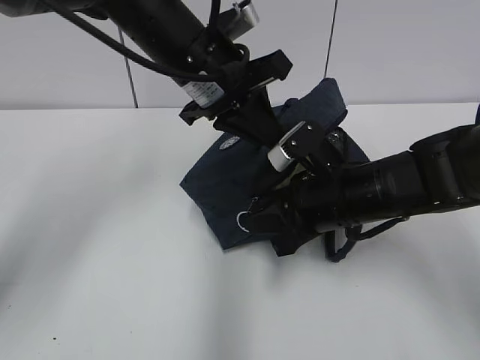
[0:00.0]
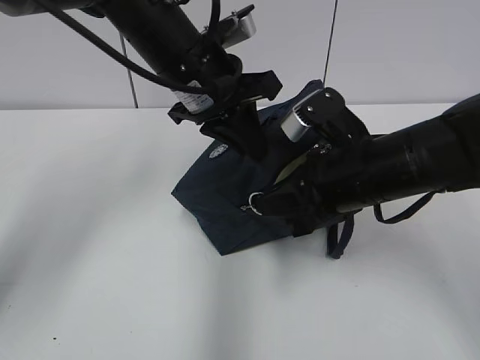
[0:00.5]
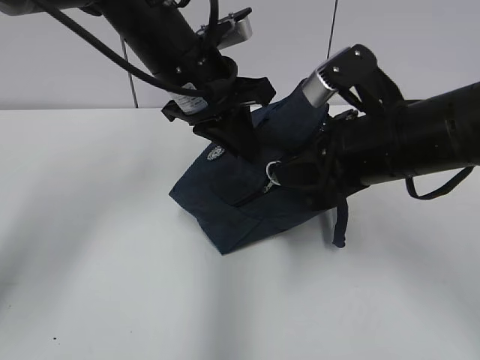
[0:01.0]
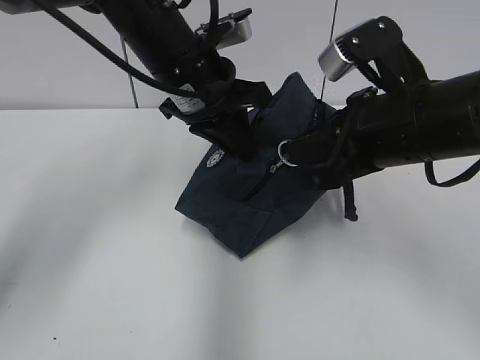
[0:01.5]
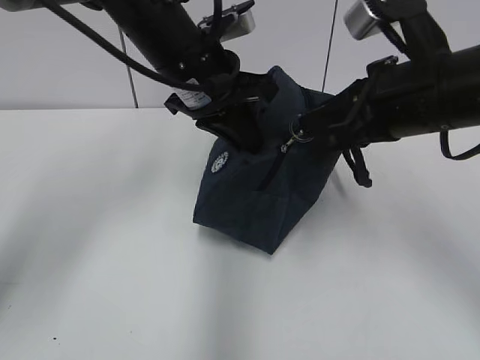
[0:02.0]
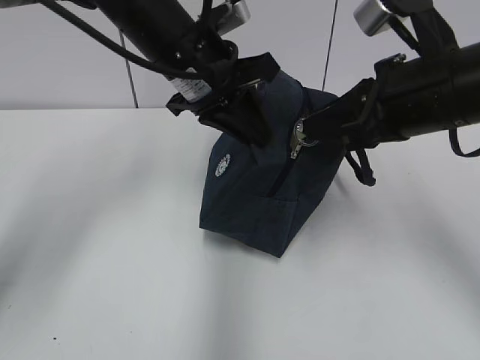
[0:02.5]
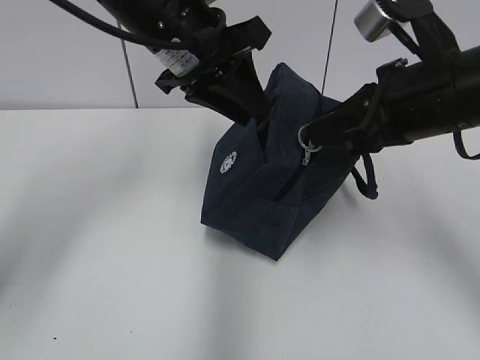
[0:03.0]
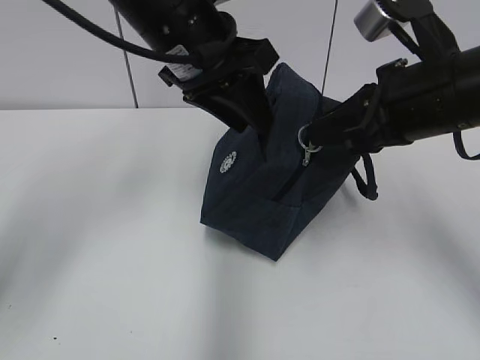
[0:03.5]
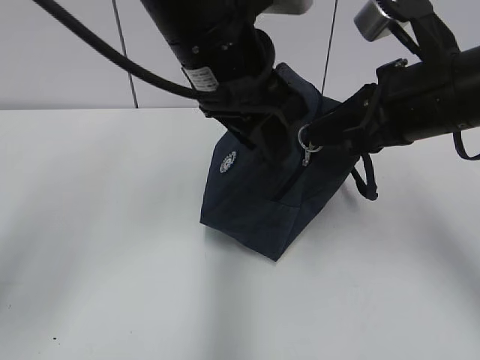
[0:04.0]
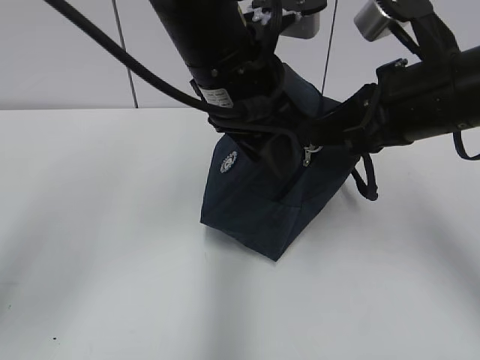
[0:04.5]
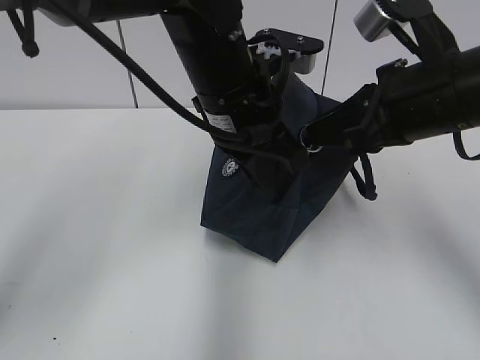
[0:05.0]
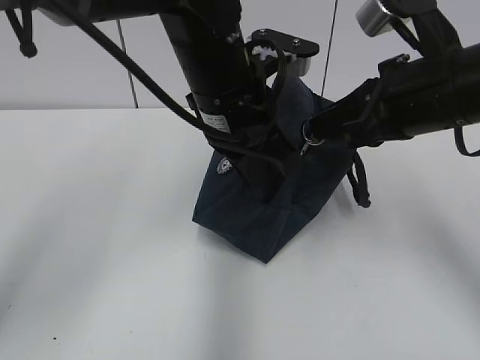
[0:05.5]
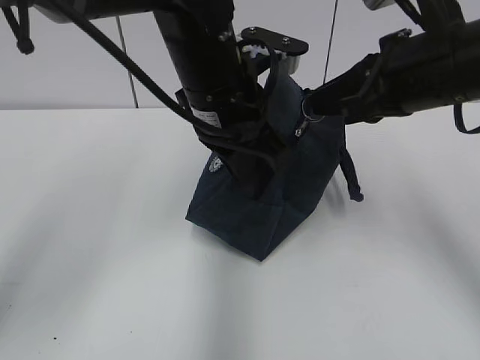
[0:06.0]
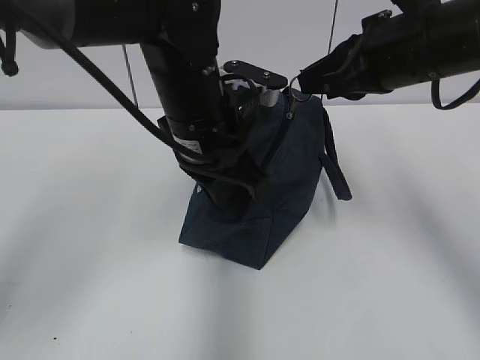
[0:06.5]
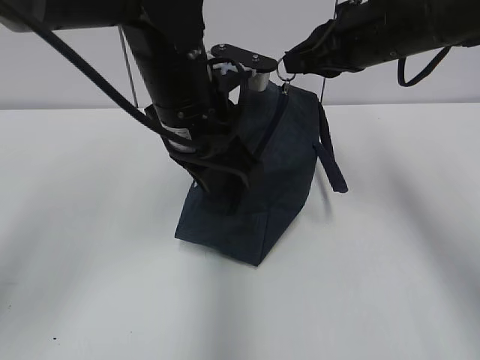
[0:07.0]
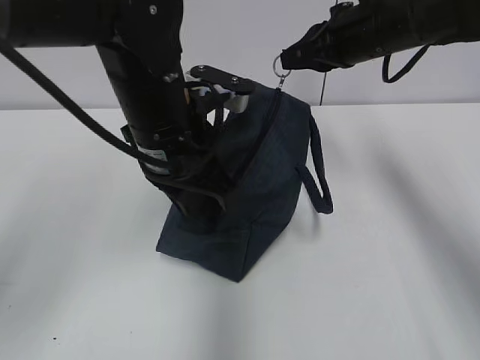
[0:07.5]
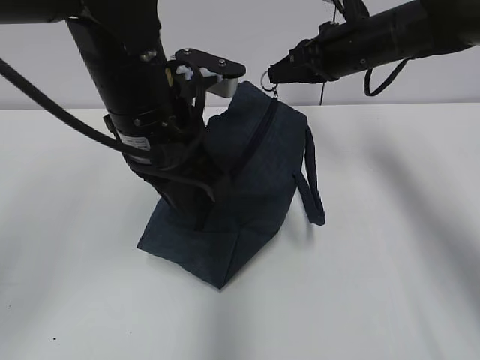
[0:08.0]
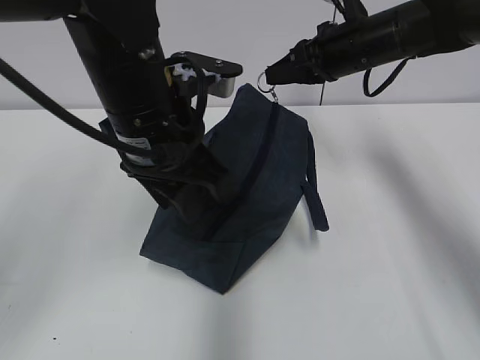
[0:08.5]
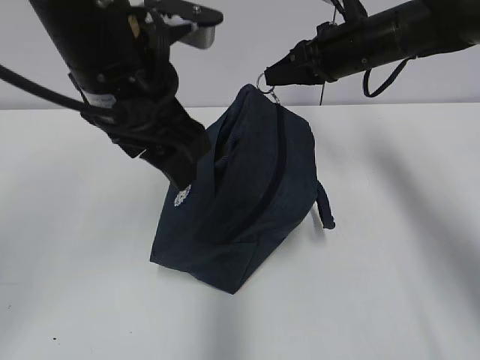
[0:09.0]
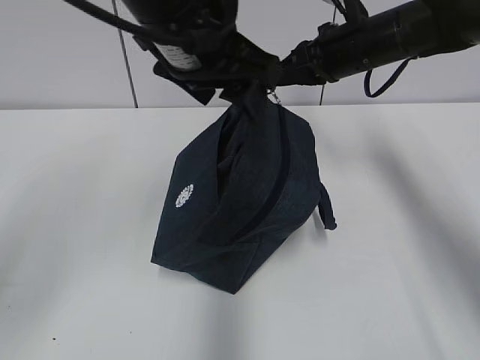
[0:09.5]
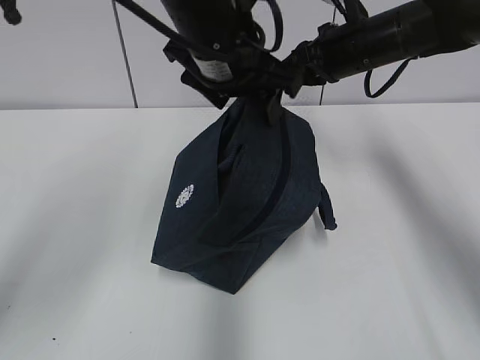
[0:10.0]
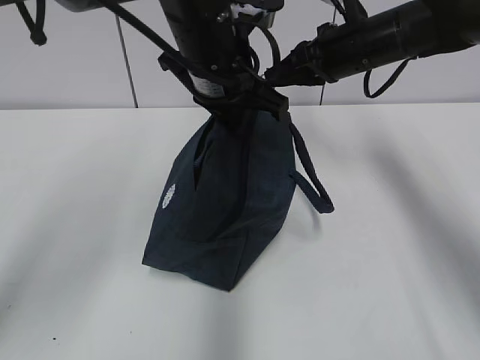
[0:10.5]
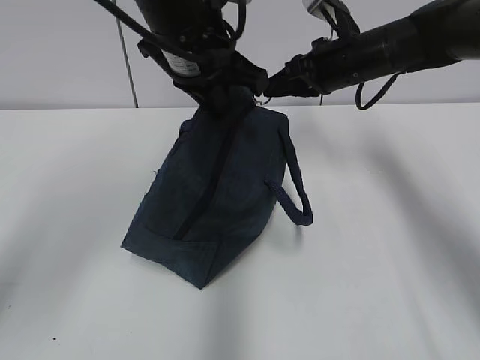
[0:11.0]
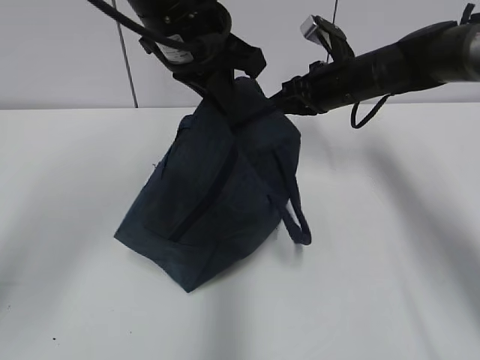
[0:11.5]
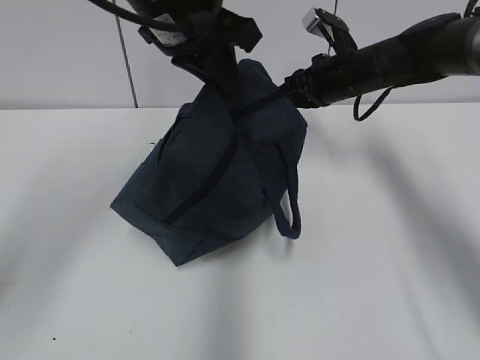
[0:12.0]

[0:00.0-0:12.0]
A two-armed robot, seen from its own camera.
0:00.0 to 0:02.0: The right gripper heads upward, covering some 15 cm.
0:02.0 to 0:04.0: The left gripper goes approximately 5 cm backward, and opens.
0:04.0 to 0:06.0: The left gripper heads downward, covering about 5 cm, and closes.
0:06.0 to 0:08.0: The right gripper is displaced forward by some 15 cm, while the left gripper heads to the left, covering roughly 5 cm.
0:08.0 to 0:10.0: The left gripper is displaced forward and to the right by about 10 cm, and opens its fingers.
0:10.0 to 0:12.0: The right gripper travels downward by roughly 5 cm. Meanwhile the left gripper moves roughly 5 cm, and closes.

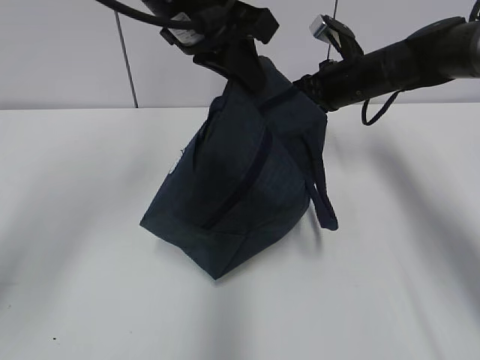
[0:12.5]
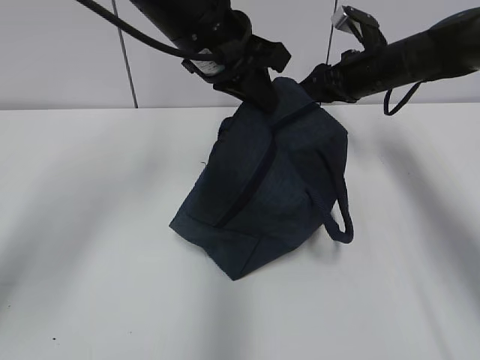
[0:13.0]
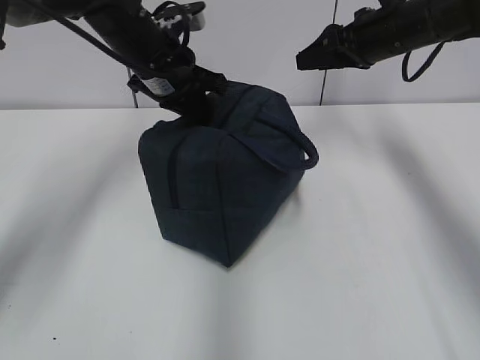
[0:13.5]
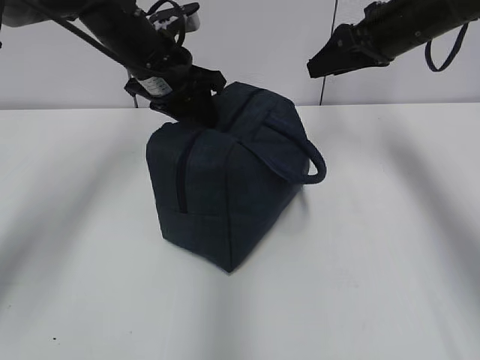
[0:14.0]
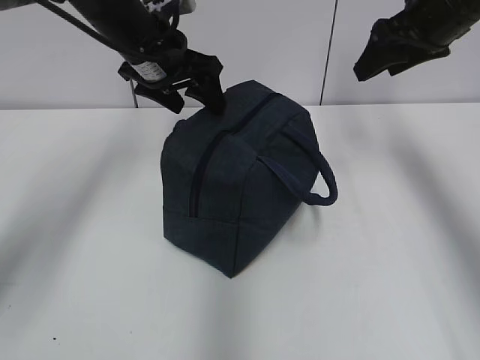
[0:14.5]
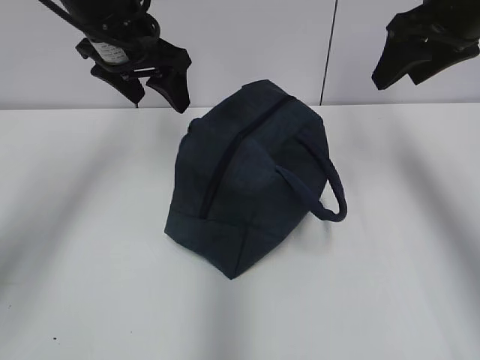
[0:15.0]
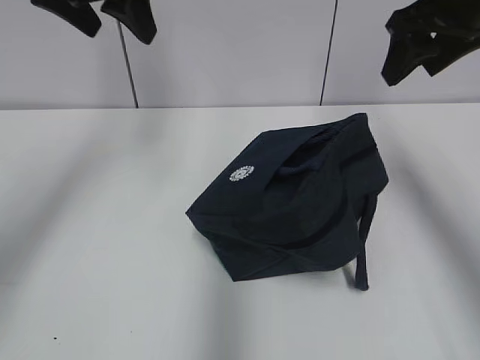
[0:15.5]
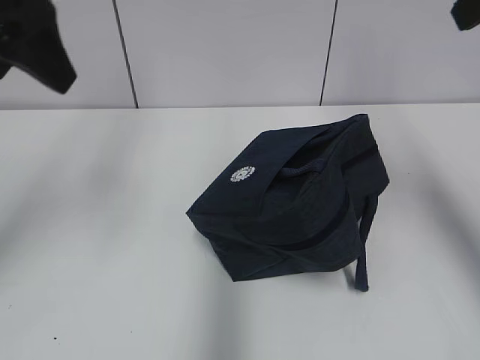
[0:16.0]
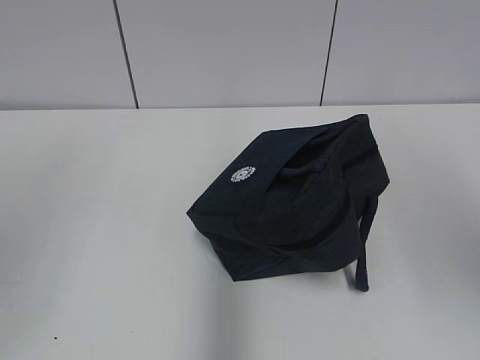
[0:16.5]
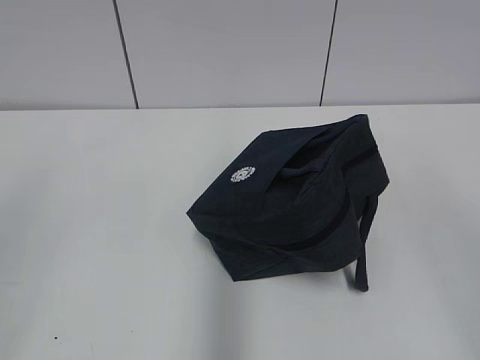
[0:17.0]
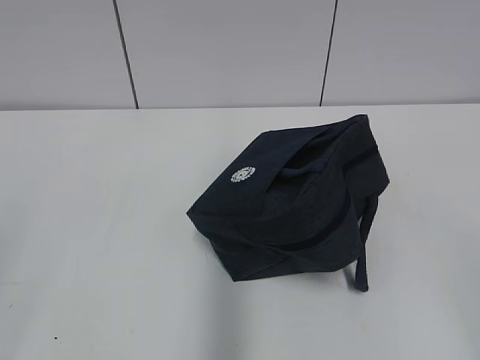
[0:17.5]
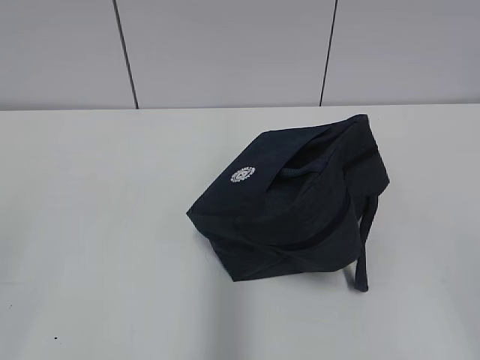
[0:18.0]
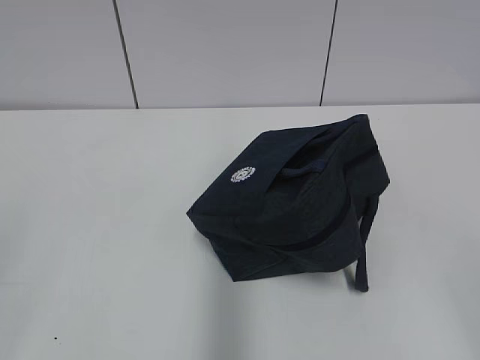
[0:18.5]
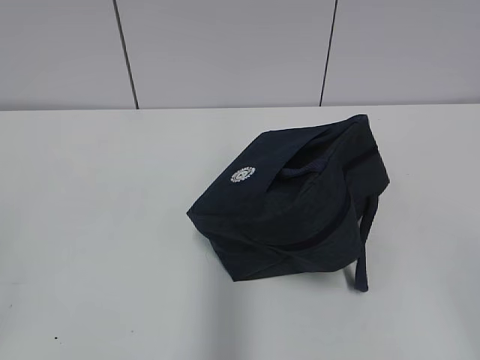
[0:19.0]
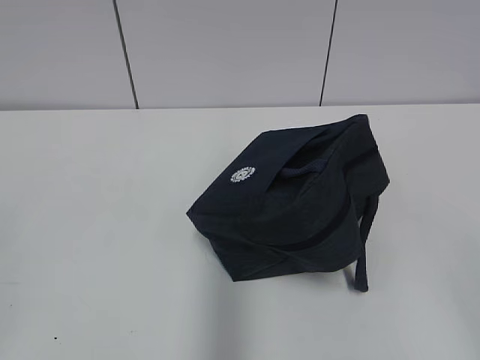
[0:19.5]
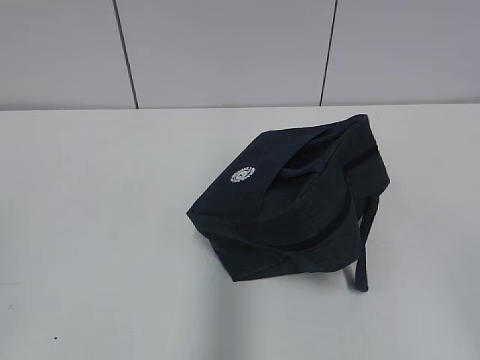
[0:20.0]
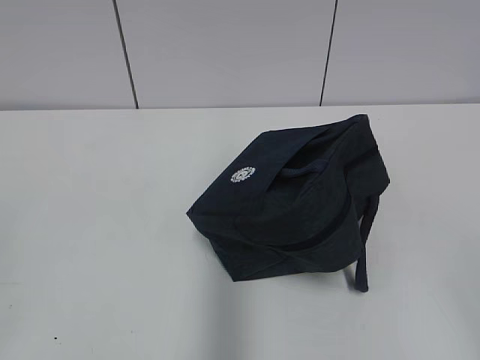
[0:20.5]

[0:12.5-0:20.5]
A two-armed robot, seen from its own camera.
0:12.5 to 0:14.5: The right gripper is displaced upward, backward and to the right by about 15 cm, and opens. The left gripper travels forward, downward and to the left by about 10 cm, and opens its fingers.
0:14.5 to 0:16.5: The right gripper moves backward, some 30 cm. Meanwhile the left gripper travels backward, to the left and upward by about 40 cm.
0:16.5 to 0:18.5: The right gripper travels downward and backward by some 20 cm.

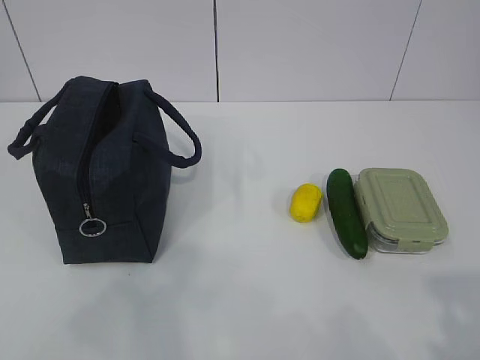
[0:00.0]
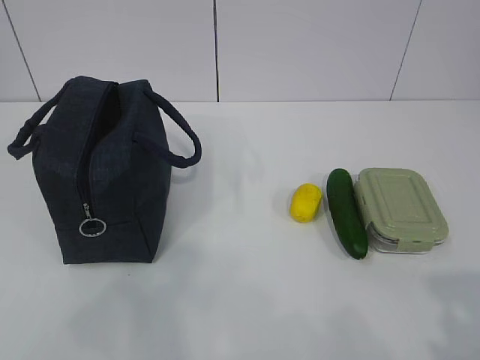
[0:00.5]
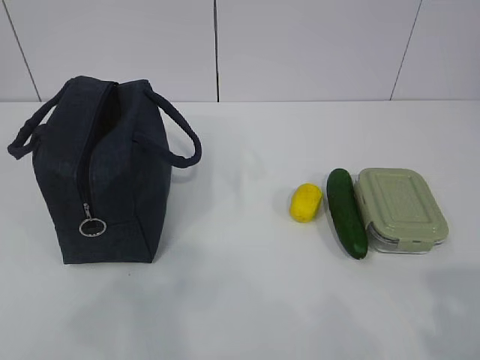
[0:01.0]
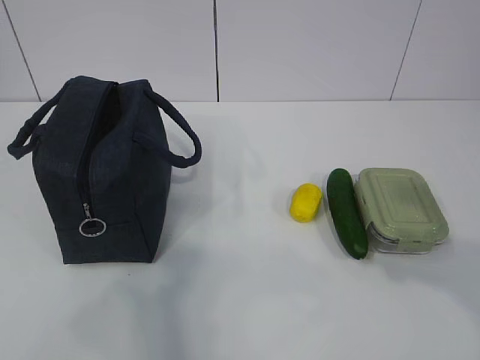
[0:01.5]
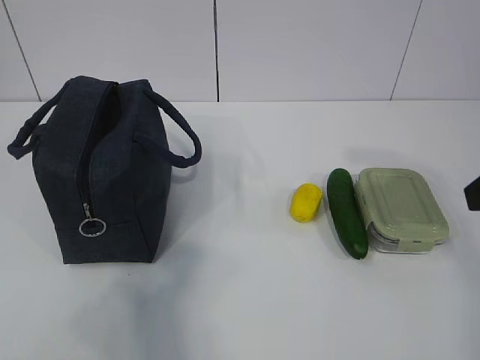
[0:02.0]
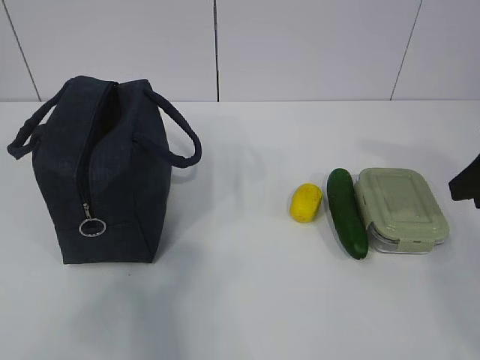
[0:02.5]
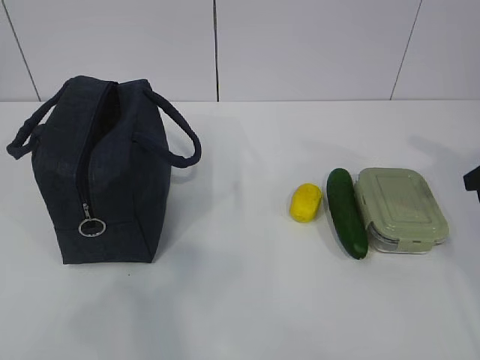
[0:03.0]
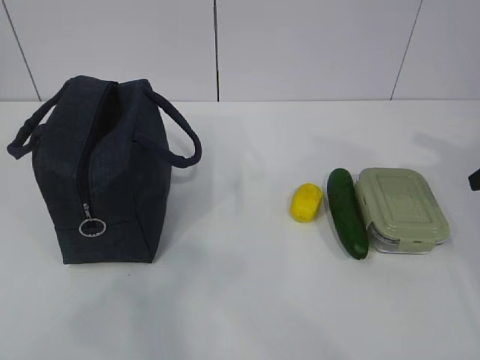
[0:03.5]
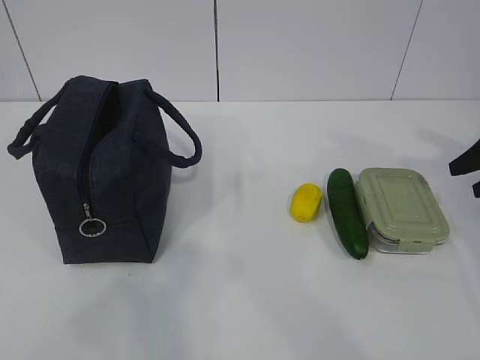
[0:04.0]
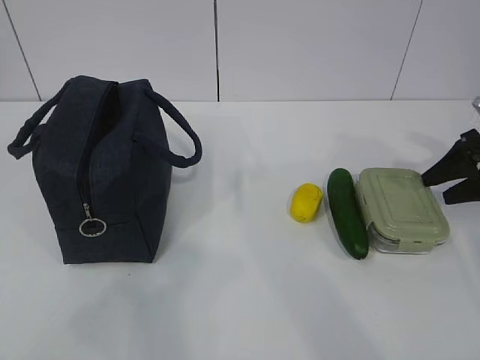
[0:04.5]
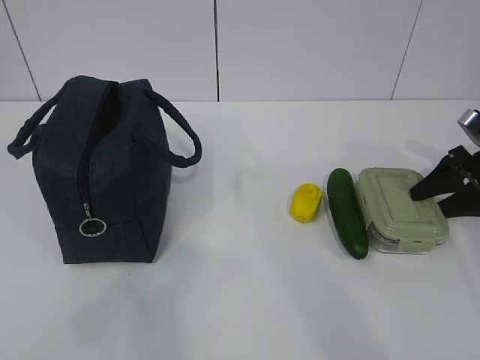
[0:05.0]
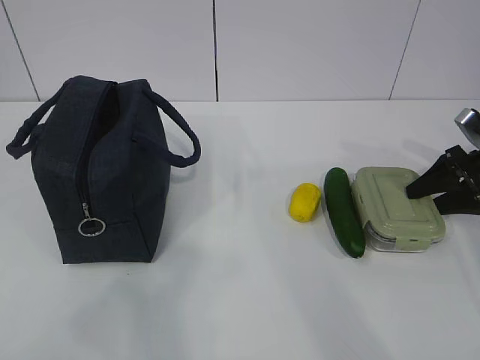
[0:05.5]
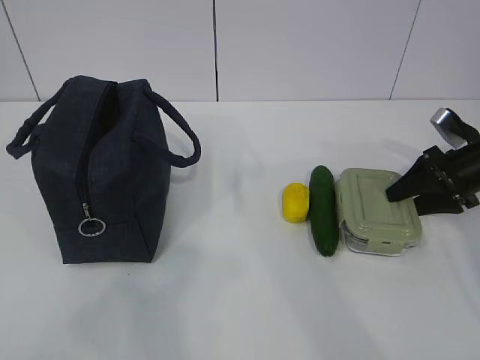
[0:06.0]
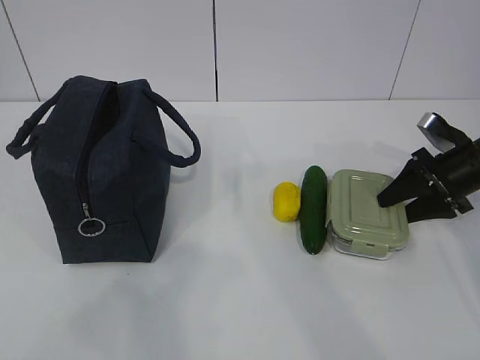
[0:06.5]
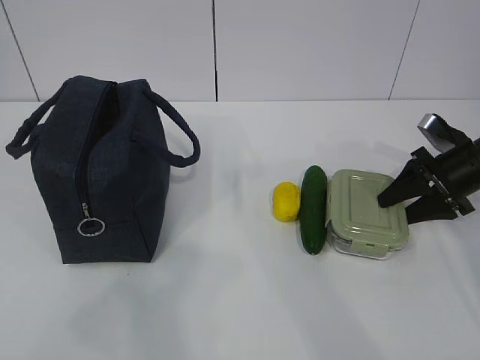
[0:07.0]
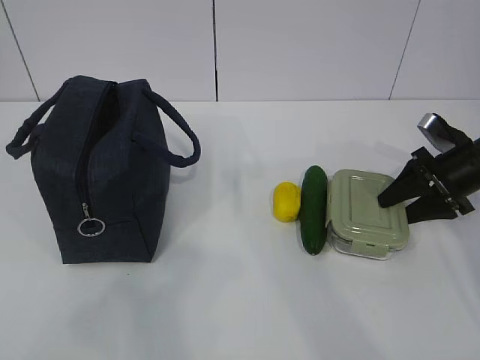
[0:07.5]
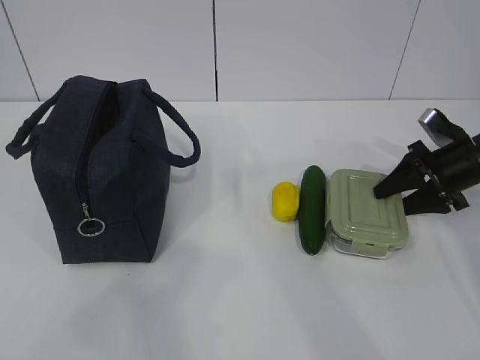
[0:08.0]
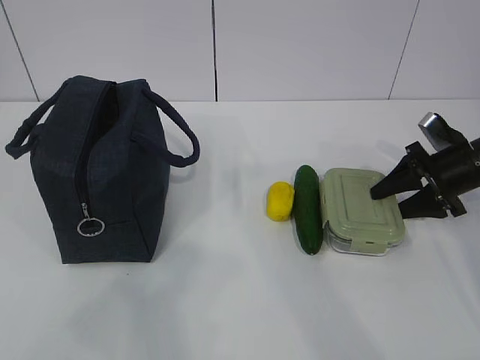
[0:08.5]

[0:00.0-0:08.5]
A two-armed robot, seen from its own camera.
0:02.0 to 0:04.0: The right gripper travels forward, to the right and downward by roughly 25 cm, and closes, then reopens.
0:04.0 to 0:06.5: The right gripper heads downward and to the left, covering about 10 cm.
0:06.5 to 0:08.5: The grippers make only small movements.
